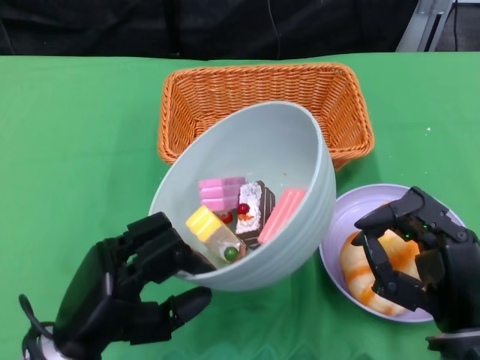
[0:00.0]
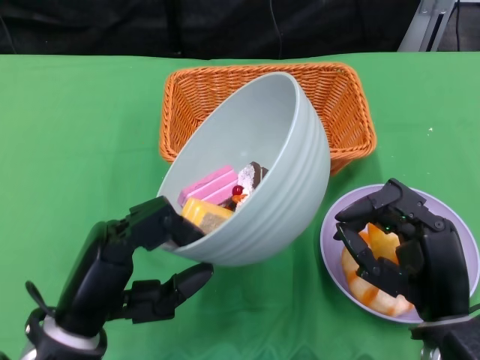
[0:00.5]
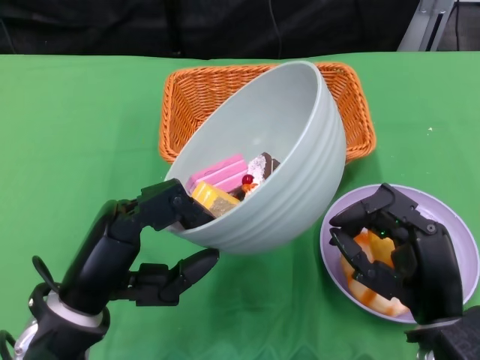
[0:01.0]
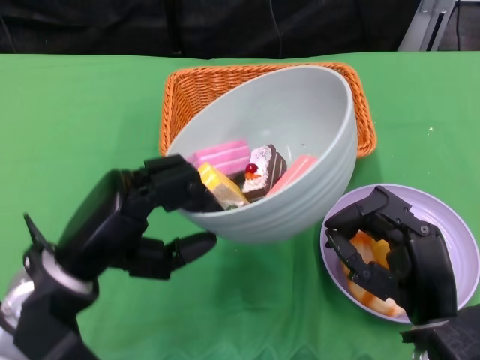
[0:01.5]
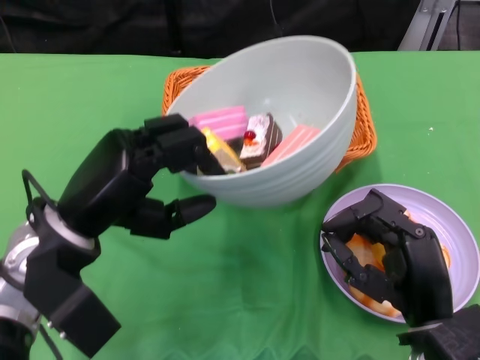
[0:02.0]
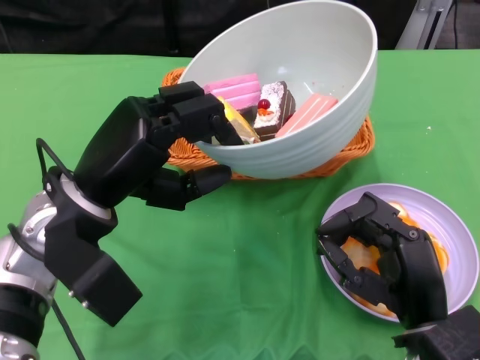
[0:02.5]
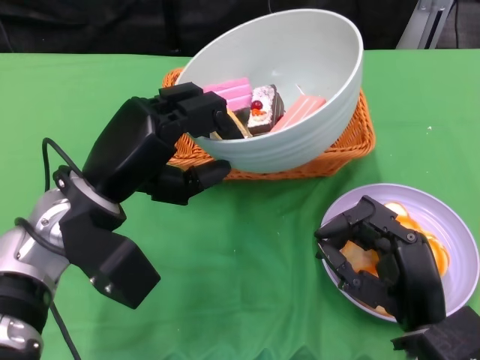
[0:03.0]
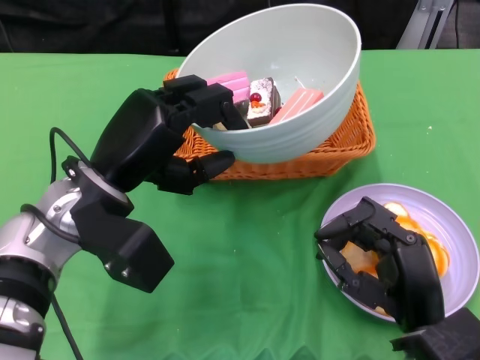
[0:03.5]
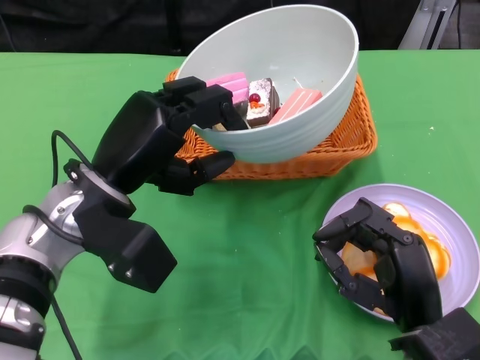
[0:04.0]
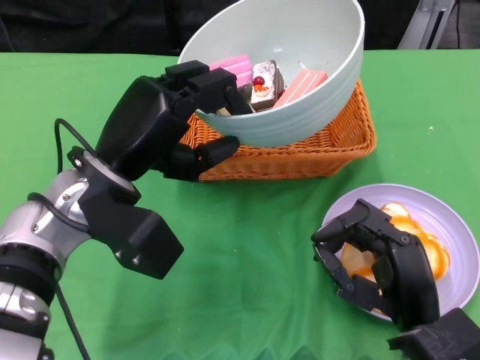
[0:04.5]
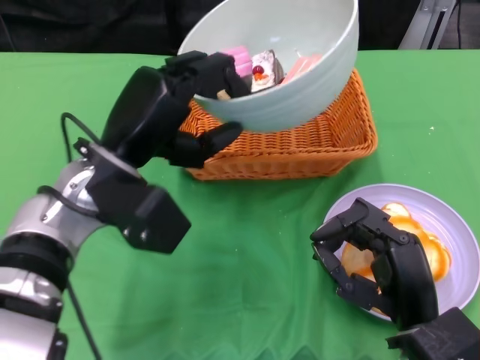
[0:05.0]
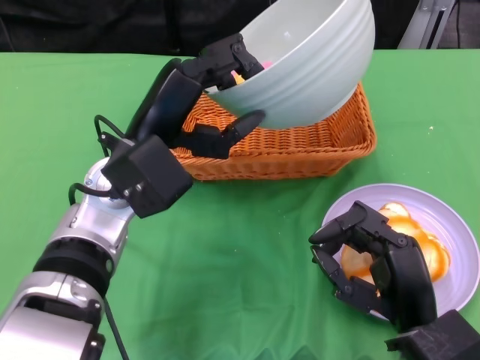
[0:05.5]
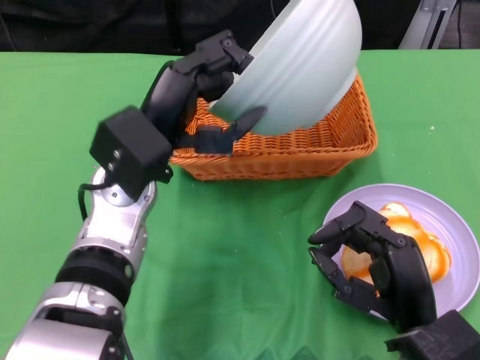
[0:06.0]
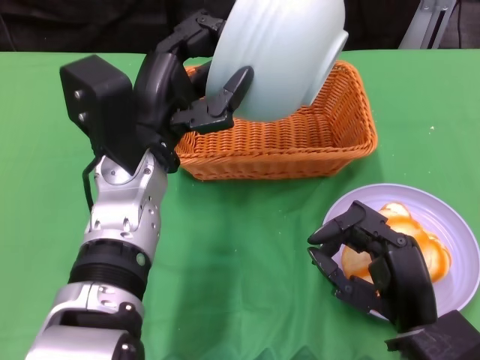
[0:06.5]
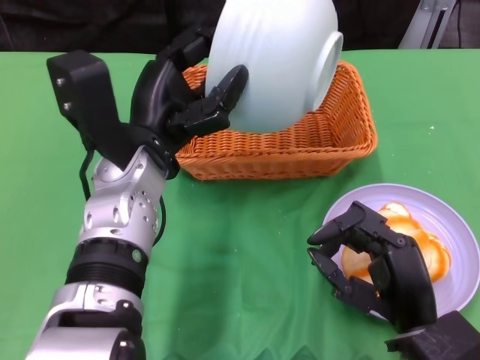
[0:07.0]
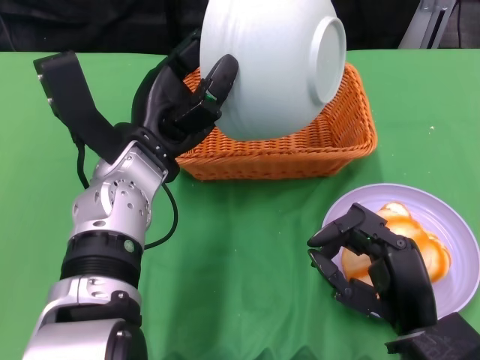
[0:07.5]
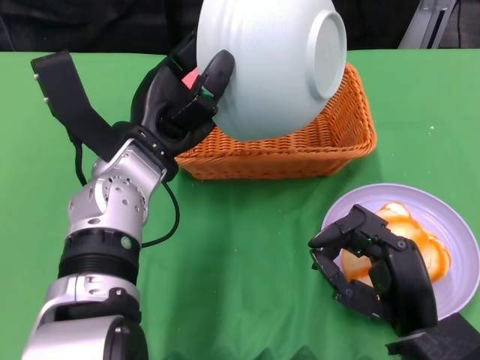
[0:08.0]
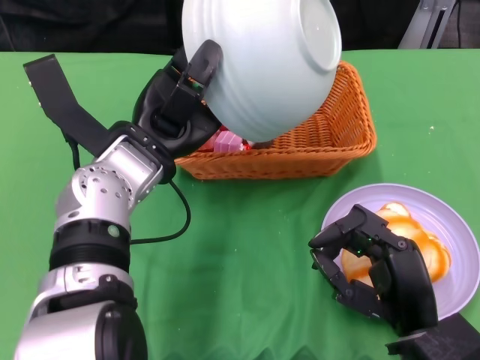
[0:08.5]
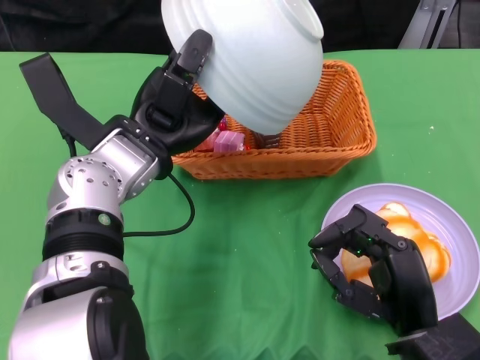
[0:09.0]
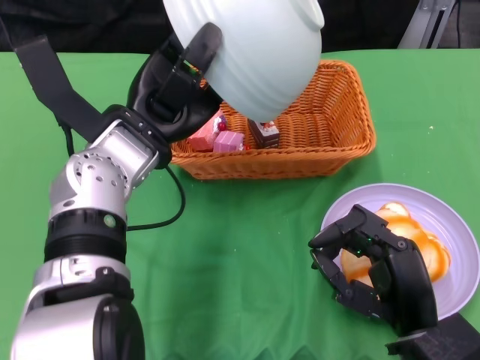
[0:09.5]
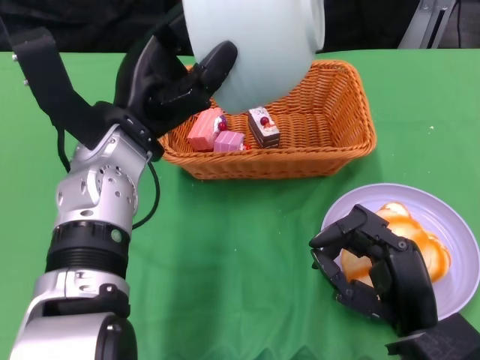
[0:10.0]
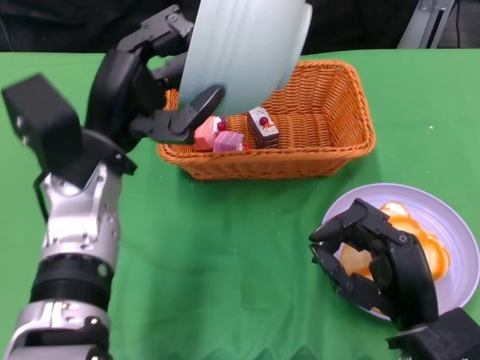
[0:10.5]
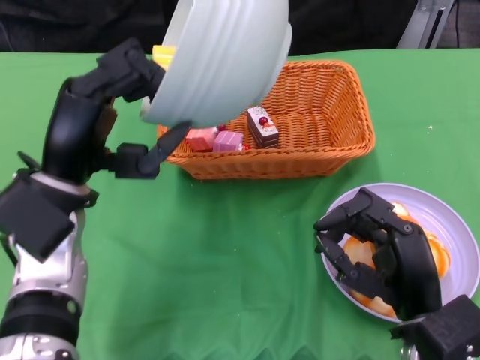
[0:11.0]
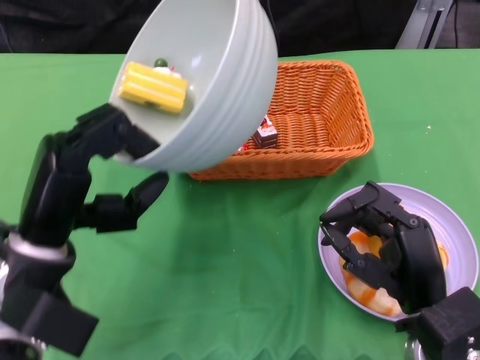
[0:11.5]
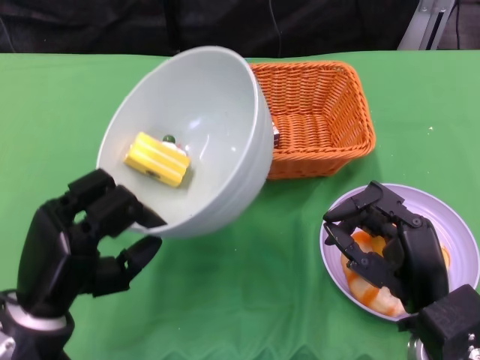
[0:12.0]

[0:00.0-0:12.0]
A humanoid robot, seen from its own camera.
0:00.0 to 0:02.0: The left hand heads forward and upward, covering approximately 10 cm.
0:10.0 to 0:12.0: The left hand shifts about 20 cm backward, downward and to the left.

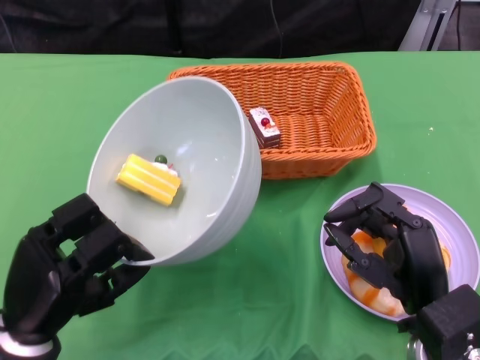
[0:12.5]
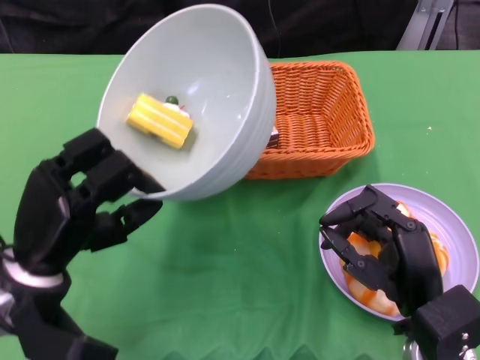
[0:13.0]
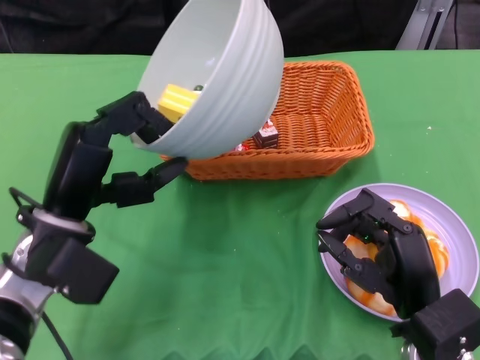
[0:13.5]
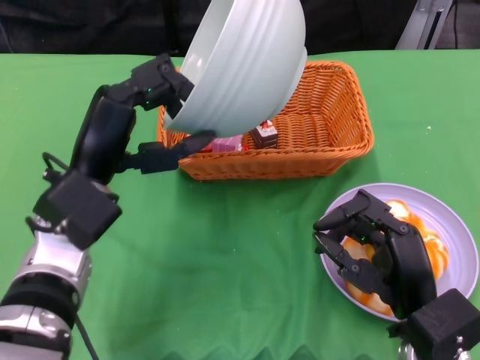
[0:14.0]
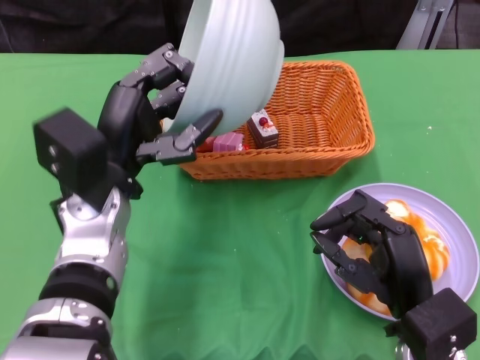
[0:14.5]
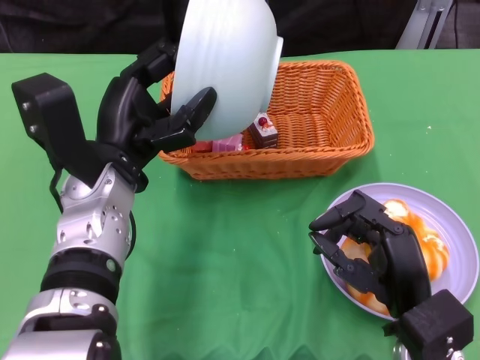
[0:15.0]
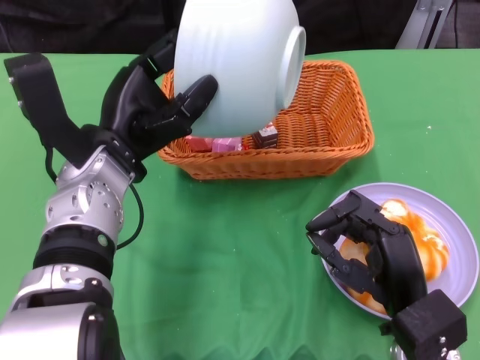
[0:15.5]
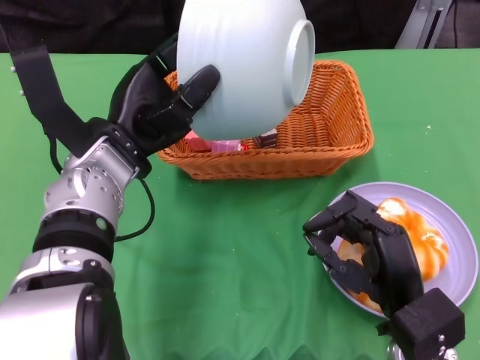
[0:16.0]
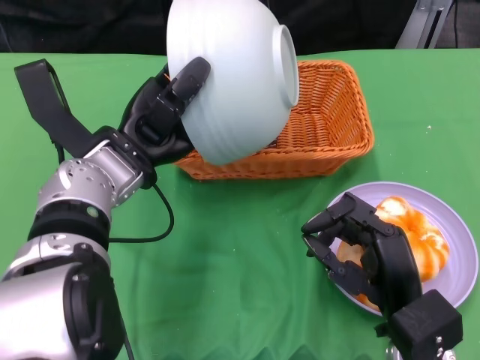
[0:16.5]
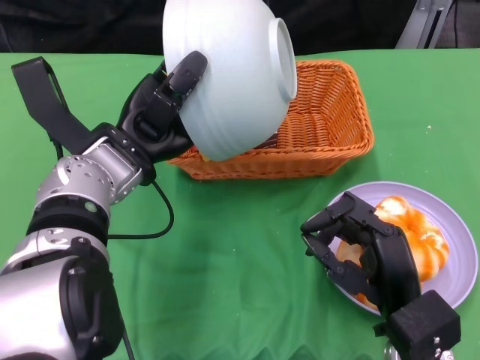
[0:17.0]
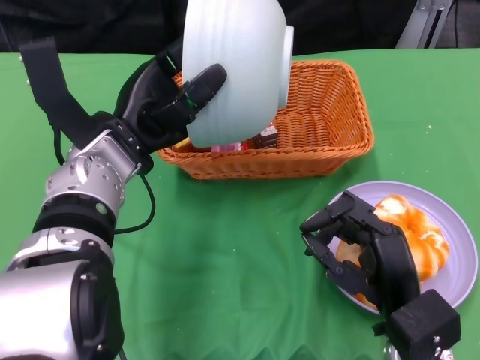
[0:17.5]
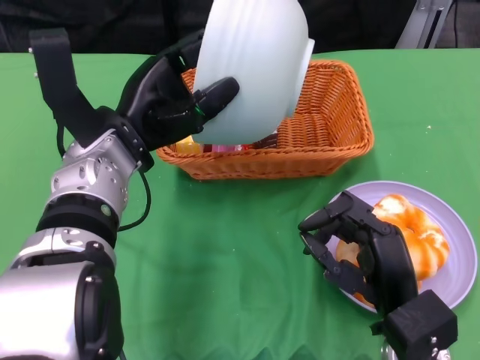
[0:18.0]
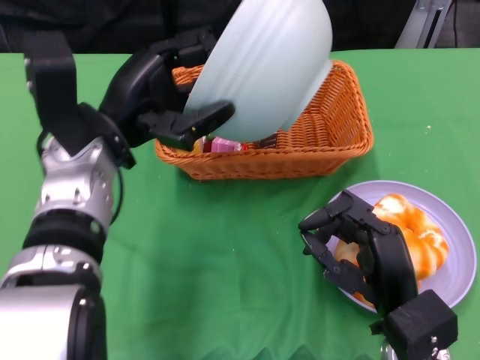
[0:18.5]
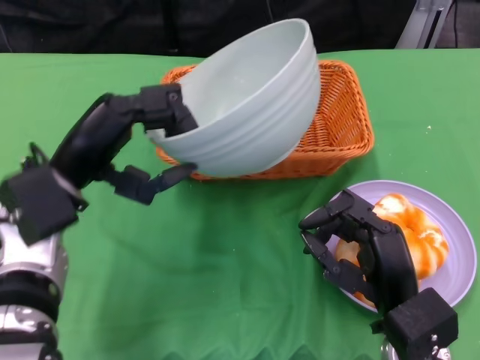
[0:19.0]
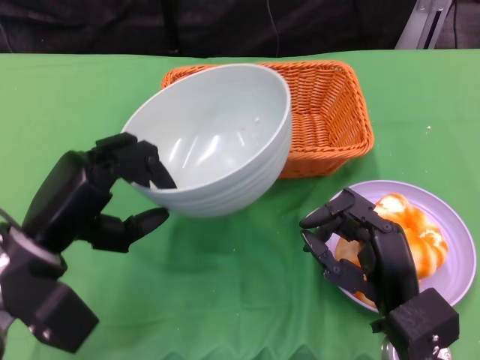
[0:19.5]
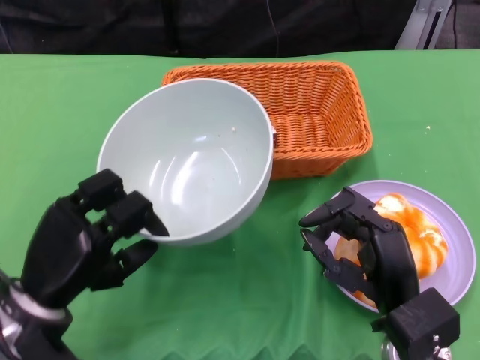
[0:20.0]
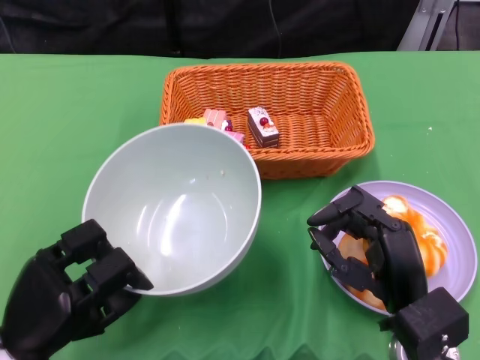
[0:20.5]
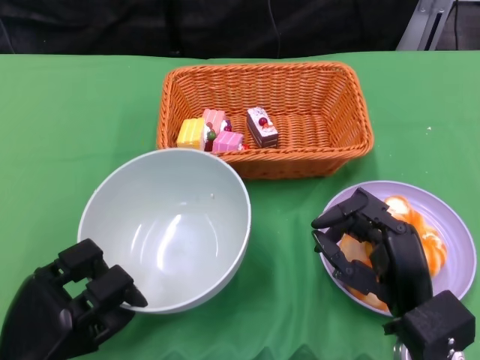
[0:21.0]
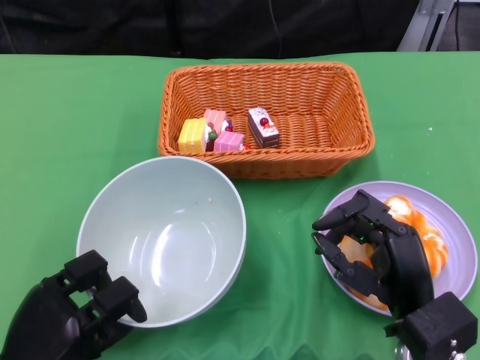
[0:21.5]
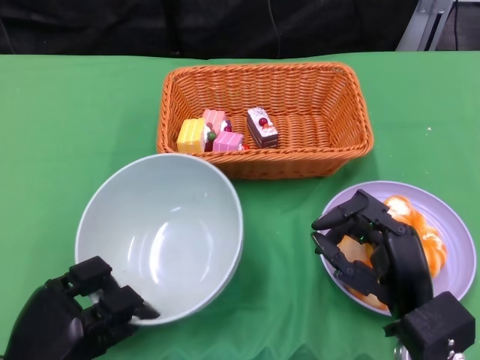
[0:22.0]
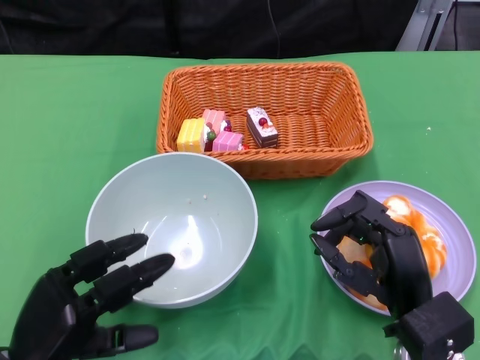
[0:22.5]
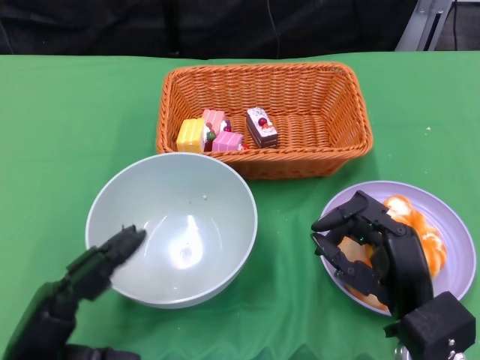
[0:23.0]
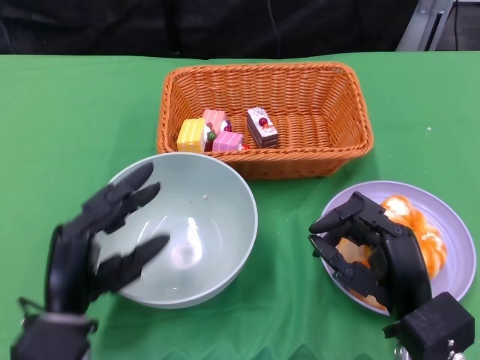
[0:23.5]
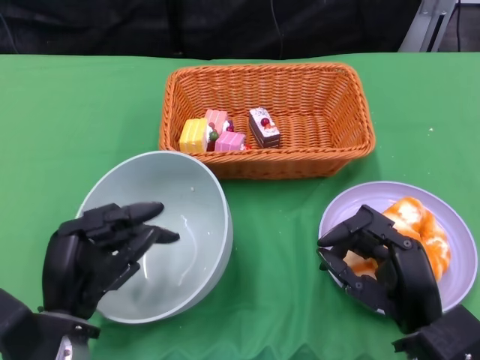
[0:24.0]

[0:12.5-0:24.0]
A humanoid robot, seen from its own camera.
Step, 0:12.5 to 0:17.5: Pour the cake into the basket with the left gripper.
0:12.5 to 0:14.5: The left hand travels forward, upward and to the right by roughly 15 cm.
0:18.5 to 0:20.0: The left hand is displaced backward, downward and to the left by roughly 15 cm.
0:20.0 to 0:22.0: The left hand is displaced downward and backward by roughly 10 cm.
0:22.0 to 0:24.0: The left hand ends up roughly 5 cm from where it was.

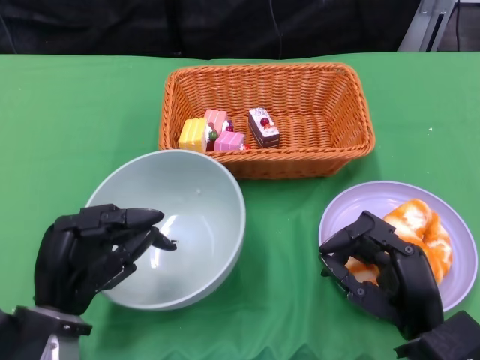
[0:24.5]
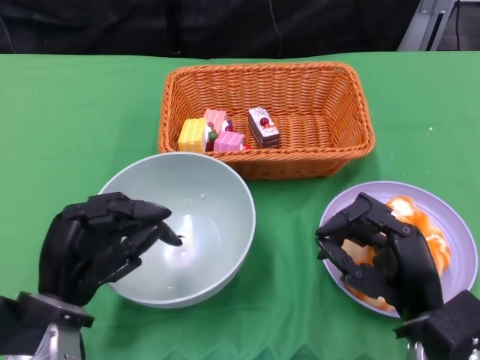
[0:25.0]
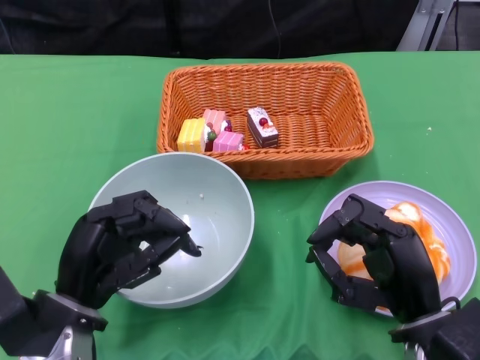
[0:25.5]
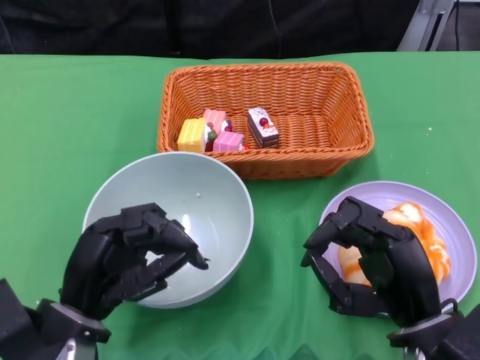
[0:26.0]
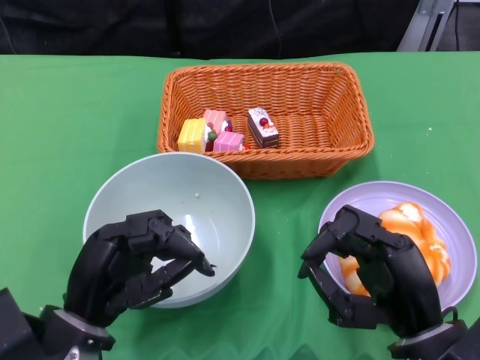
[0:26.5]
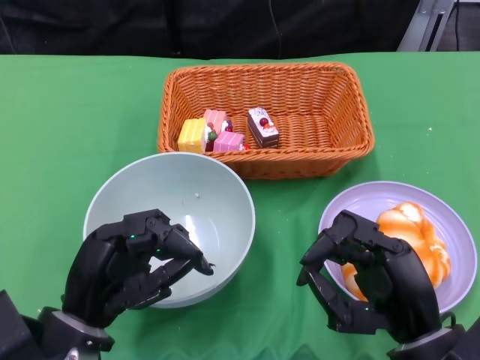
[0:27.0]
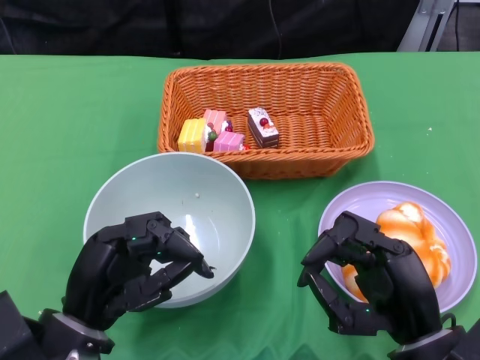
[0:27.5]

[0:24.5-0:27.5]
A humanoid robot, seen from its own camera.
0:24.5 to 0:26.0: There are only small adjustments of the hands.
0:26.0 to 0:27.5: The two hands keep their place.
